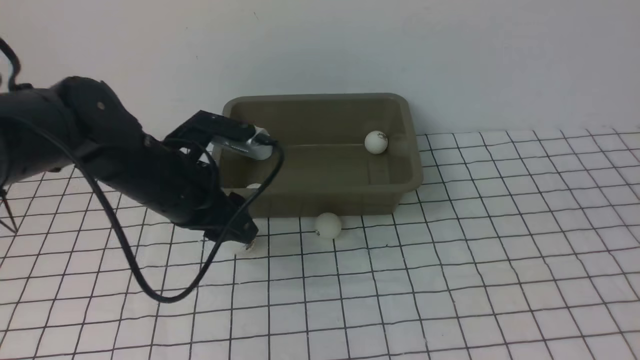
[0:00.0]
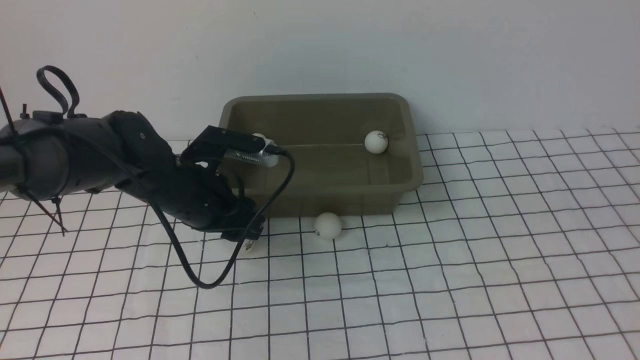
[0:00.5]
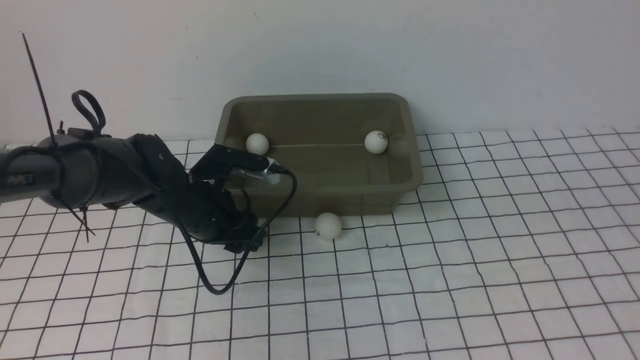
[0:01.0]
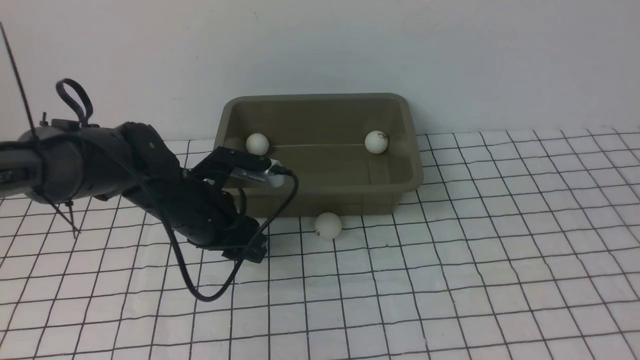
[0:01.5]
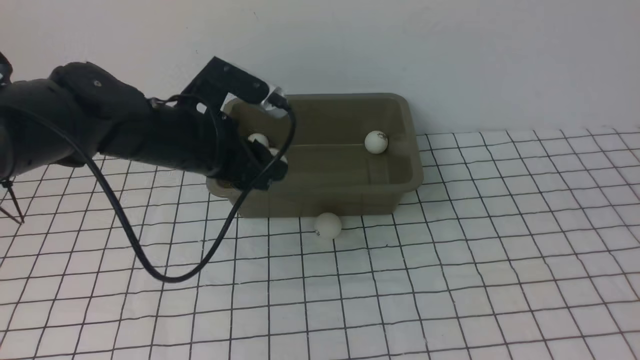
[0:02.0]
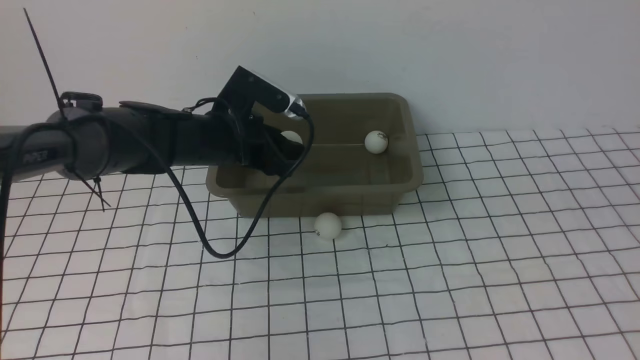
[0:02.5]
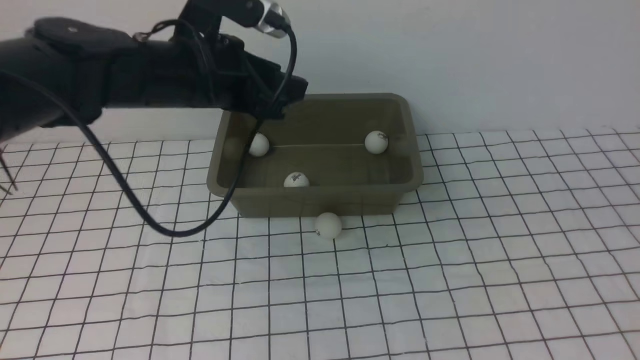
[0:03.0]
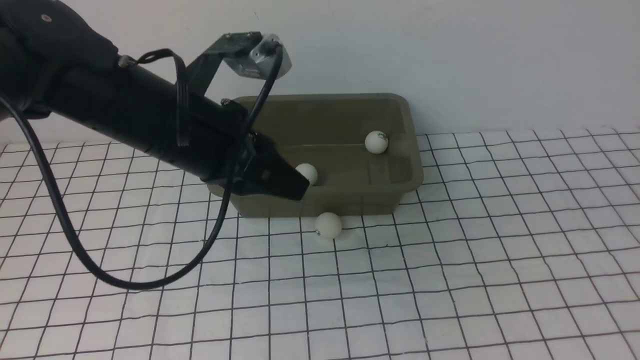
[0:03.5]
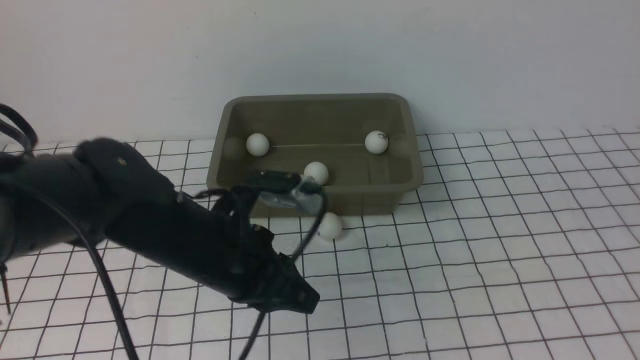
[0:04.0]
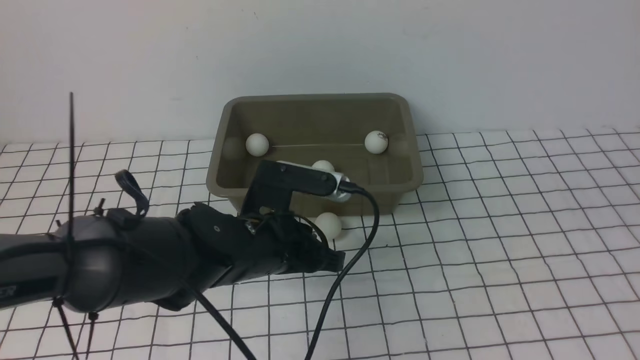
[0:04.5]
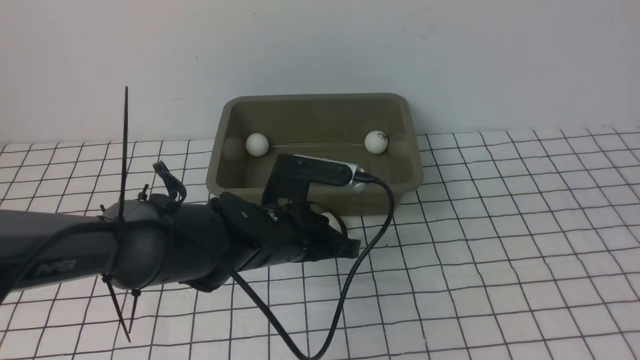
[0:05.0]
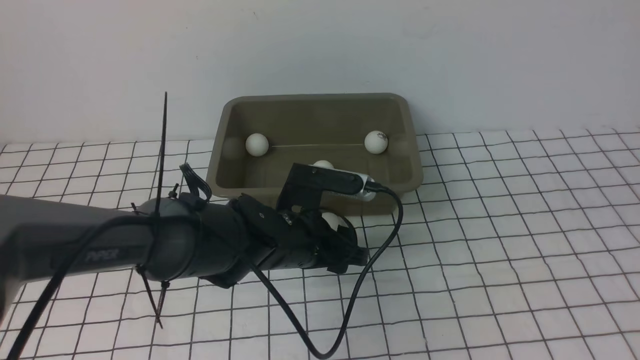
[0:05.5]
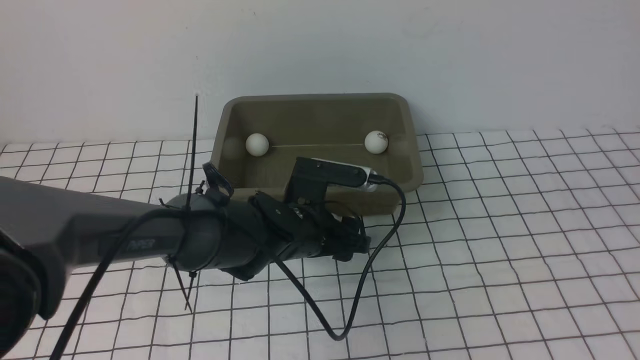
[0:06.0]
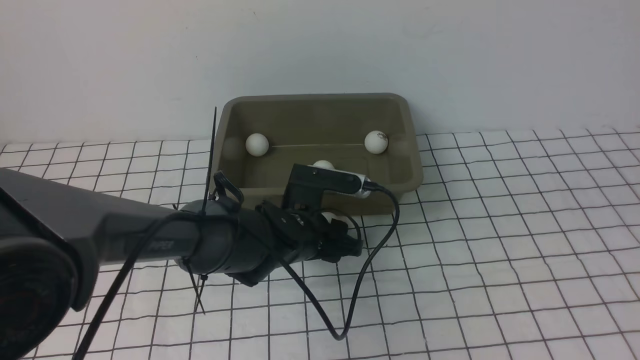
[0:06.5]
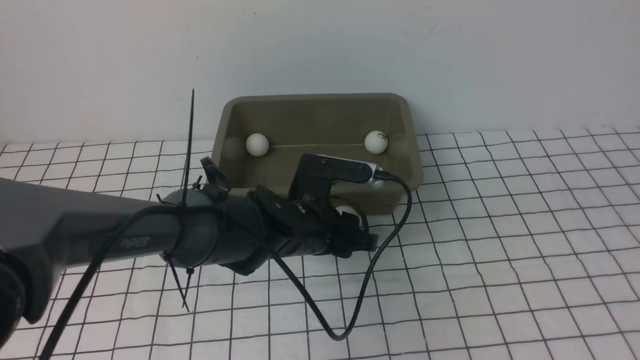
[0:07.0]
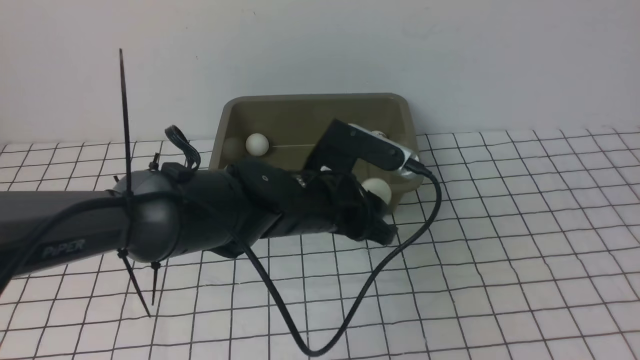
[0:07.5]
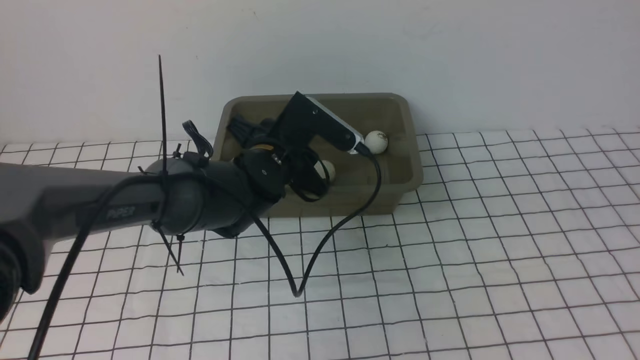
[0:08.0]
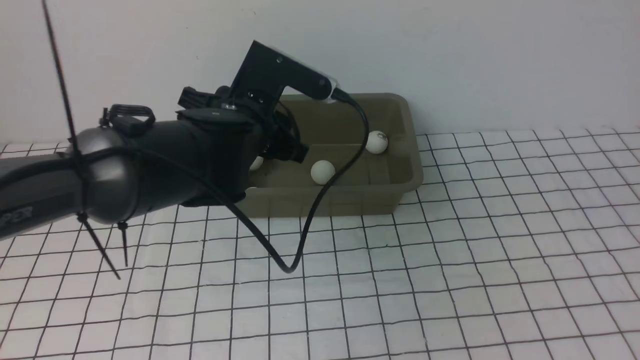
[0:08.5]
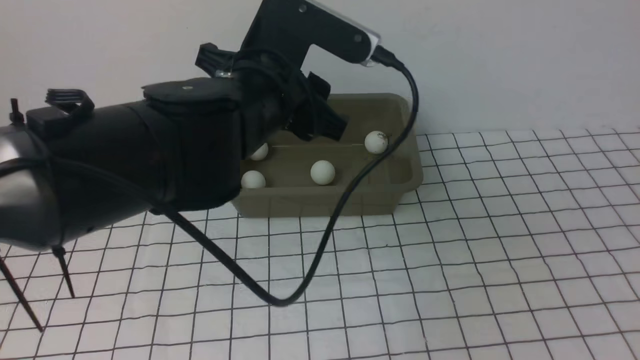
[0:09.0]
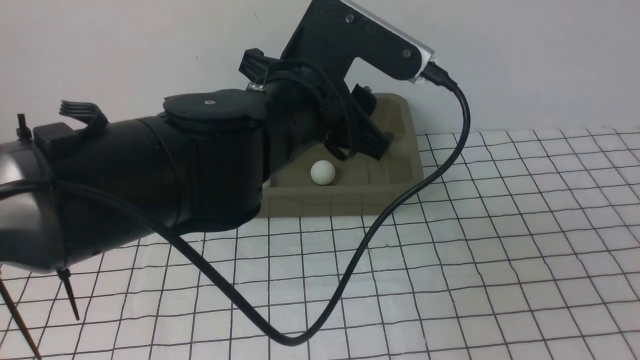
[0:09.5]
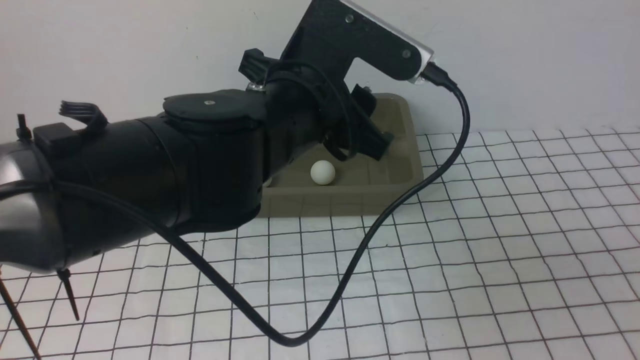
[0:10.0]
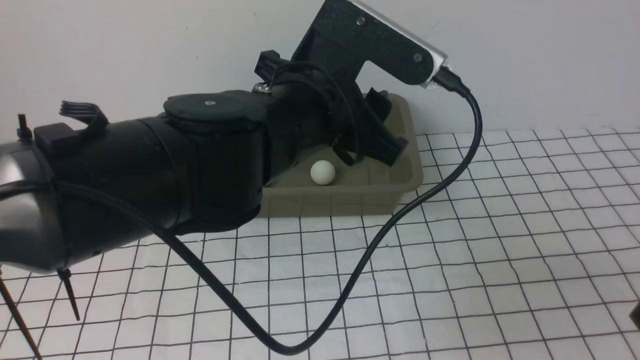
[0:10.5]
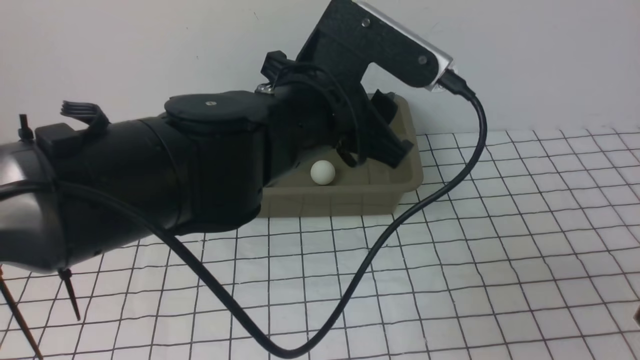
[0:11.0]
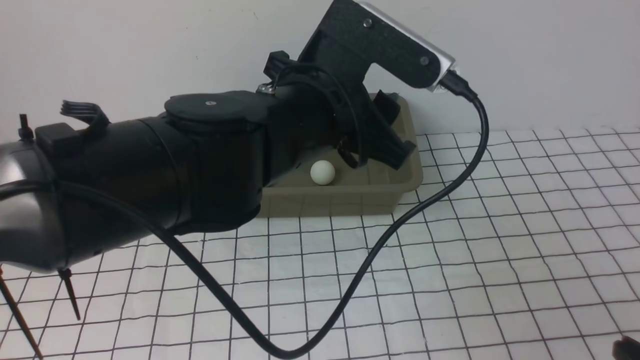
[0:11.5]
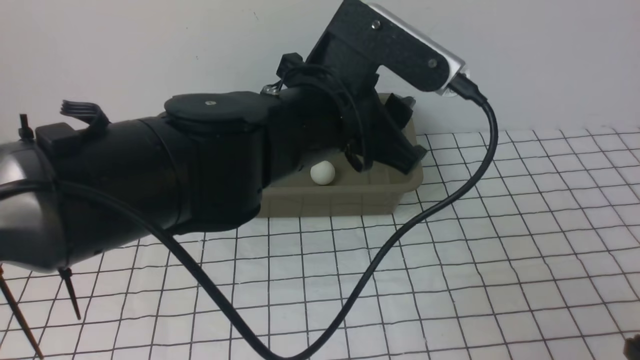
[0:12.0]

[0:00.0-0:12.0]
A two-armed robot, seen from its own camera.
Step, 0:00.0 to 0:01.5: use the left arm to clamp the table tennis ball closest to it.
Step, 0:02.0 to 0:02.5: use the left arm to put the table tennis ball into the box.
Step, 0:03.0 to 0:07.0: use the left arm to clamp the table tennis ball closest to it.
Step, 0:07.5 to 0:08.5: use the left arm to put the table tennis ball into the box.
0:00.0 to 0:02.0: The left gripper travels upward by approximately 5 cm.
0:02.0 to 0:04.0: The left gripper shifts approximately 10 cm backward, and closes its fingers.
0:04.0 to 0:06.0: The left gripper shifts about 10 cm downward, forward and to the right, and opens its fingers.
0:06.0 to 0:08.0: The left gripper goes about 5 cm upward.
0:08.0 to 0:10.0: The left gripper goes approximately 15 cm upward and backward. The right gripper is displaced downward by some 15 cm.
0:10.0 to 0:12.0: The right gripper travels downward by about 5 cm.

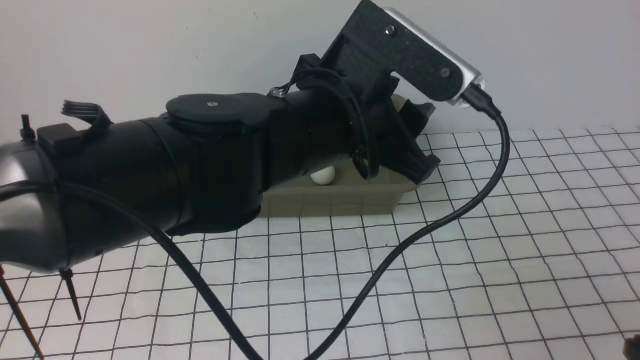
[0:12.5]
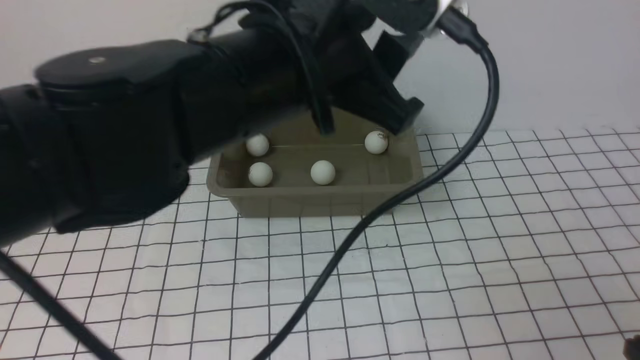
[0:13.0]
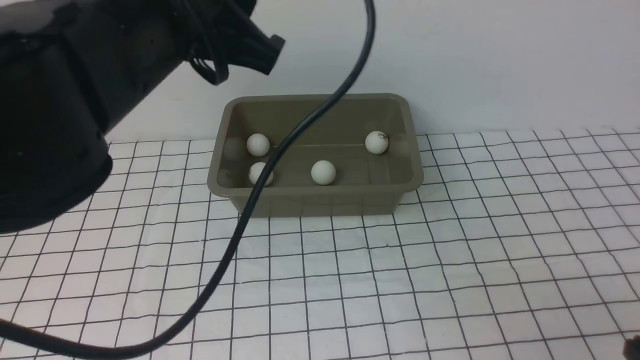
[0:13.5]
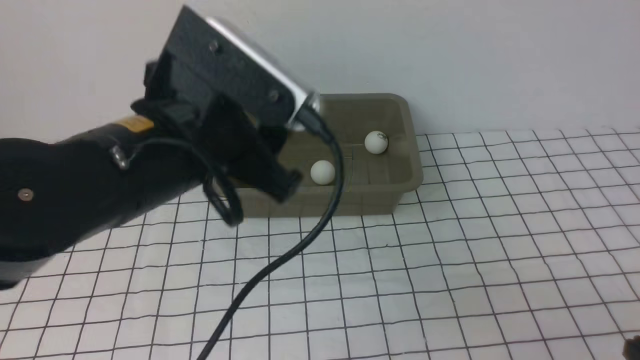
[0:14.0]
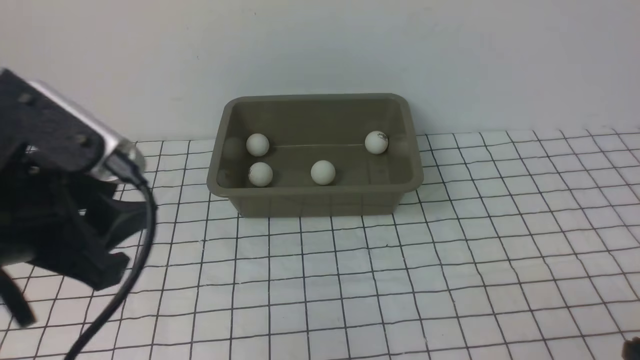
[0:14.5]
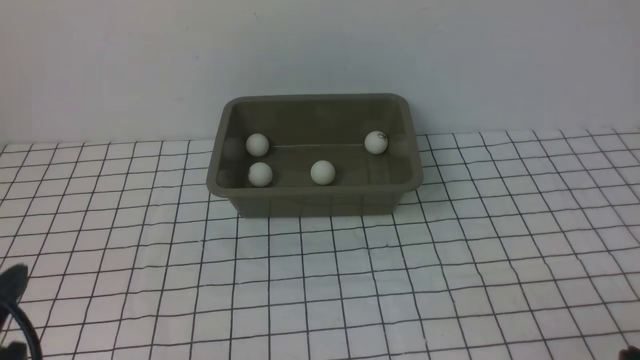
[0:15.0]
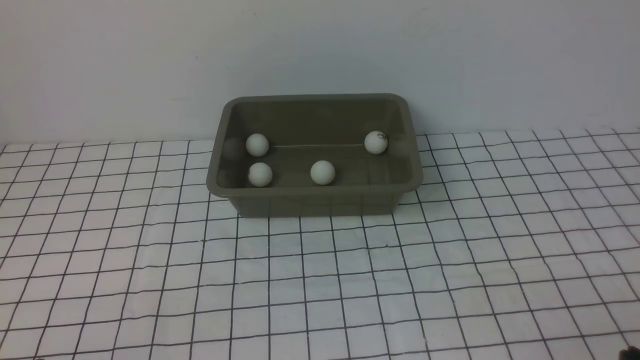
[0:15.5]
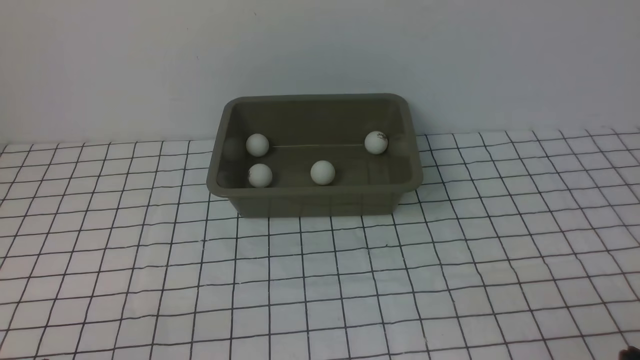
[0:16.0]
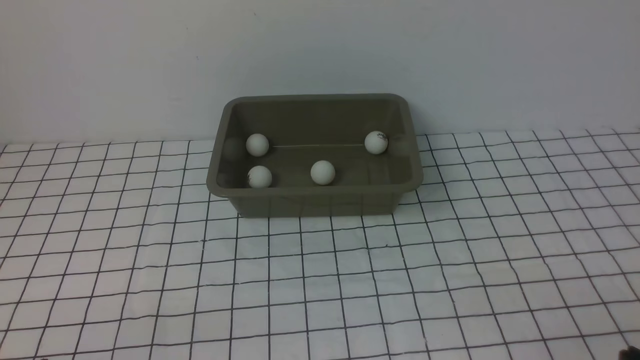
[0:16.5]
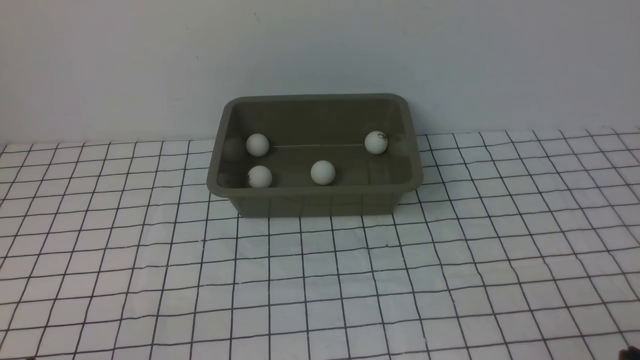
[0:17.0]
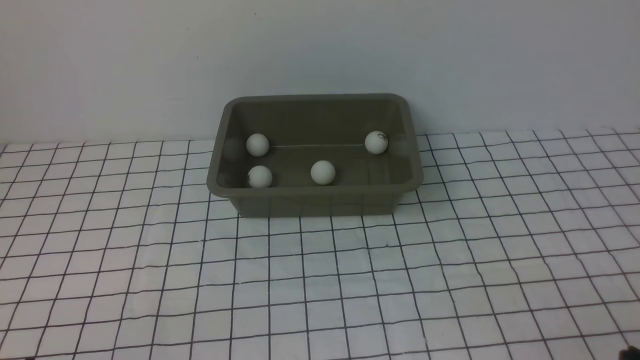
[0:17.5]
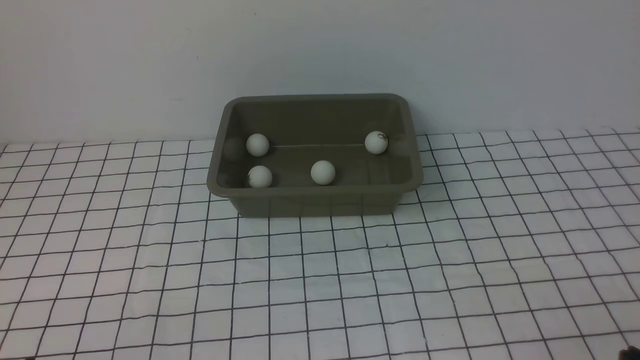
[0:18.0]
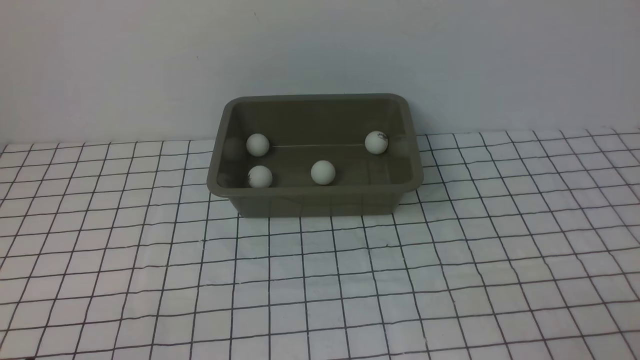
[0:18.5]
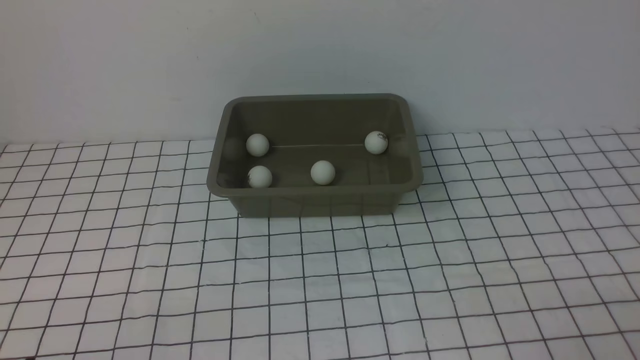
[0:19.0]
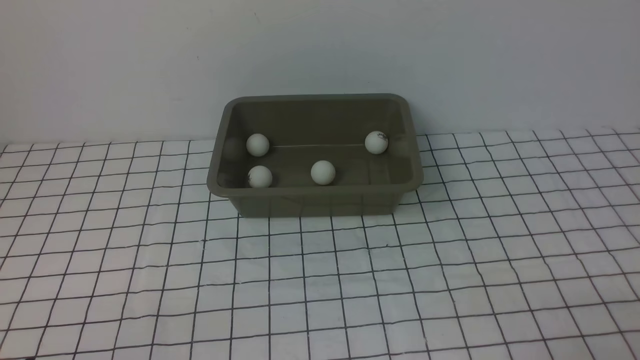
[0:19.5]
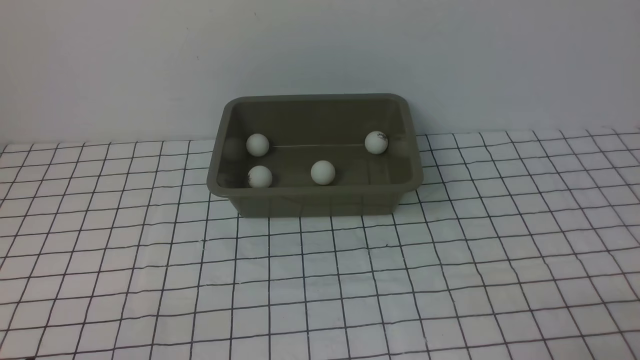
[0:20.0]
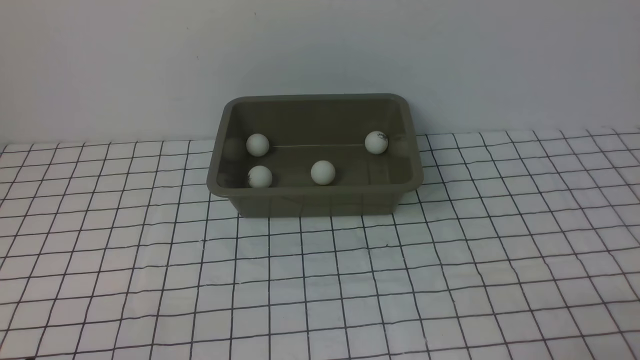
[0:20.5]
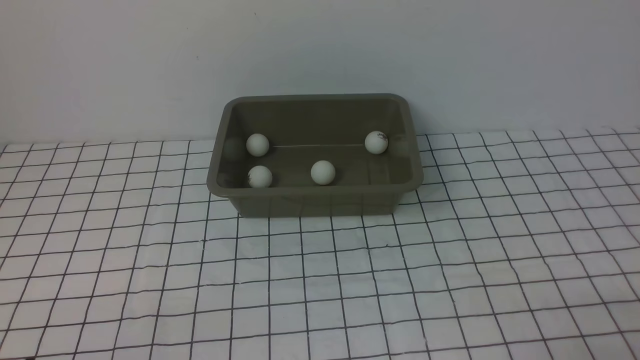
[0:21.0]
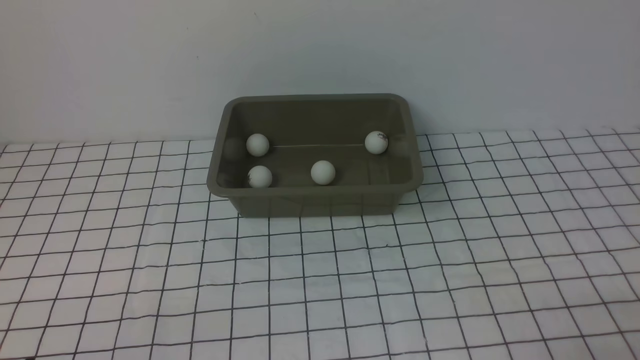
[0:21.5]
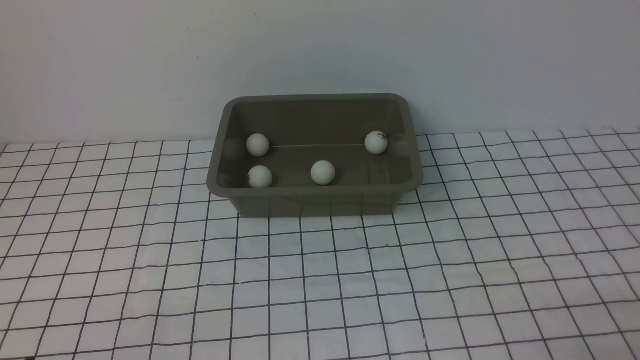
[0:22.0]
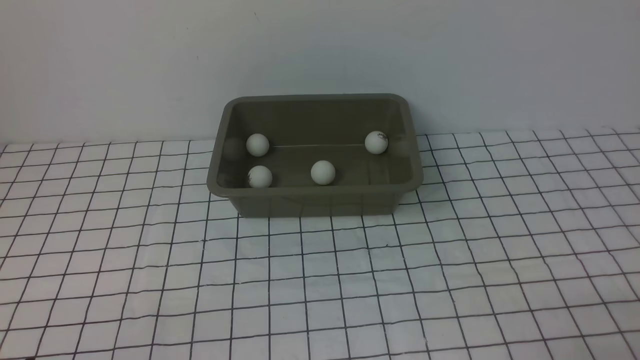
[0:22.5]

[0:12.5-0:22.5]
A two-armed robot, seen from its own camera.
0:12.5 to 0:14.5: The left gripper is displaced to the left and backward by roughly 20 cm.
0:14.5 to 0:16.5: The left gripper shifts approximately 20 cm downward and backward.
0:20.5 to 0:22.5: Neither gripper changes place.
